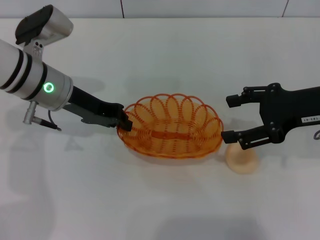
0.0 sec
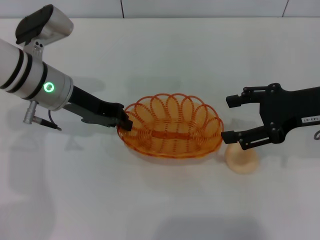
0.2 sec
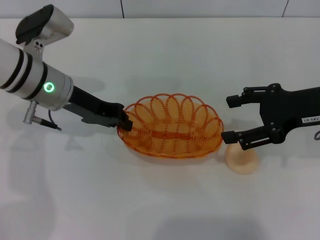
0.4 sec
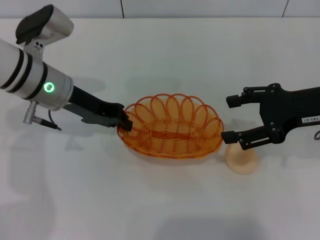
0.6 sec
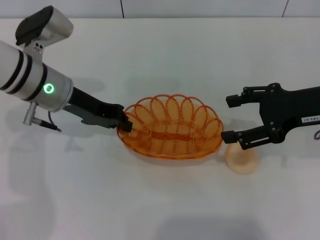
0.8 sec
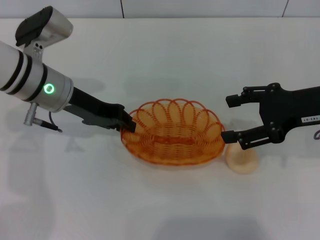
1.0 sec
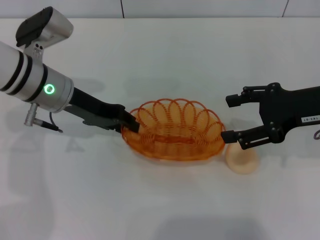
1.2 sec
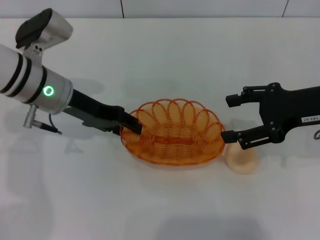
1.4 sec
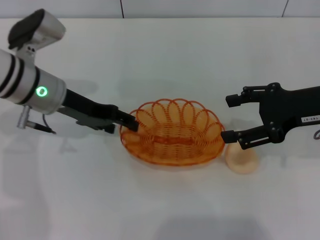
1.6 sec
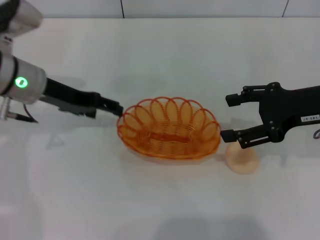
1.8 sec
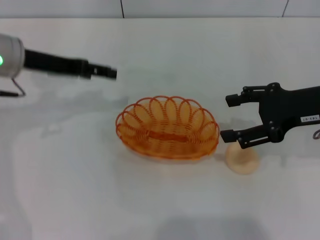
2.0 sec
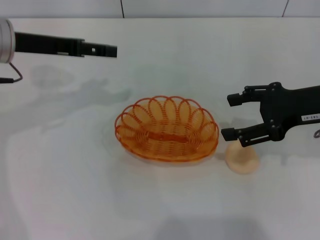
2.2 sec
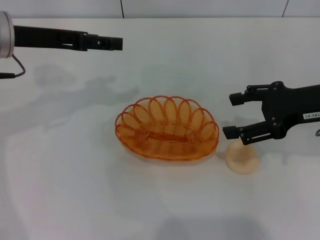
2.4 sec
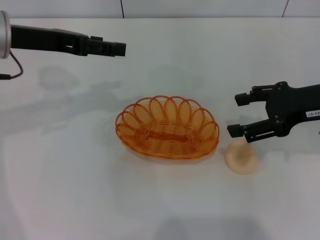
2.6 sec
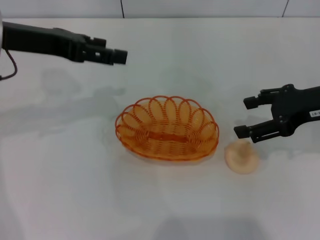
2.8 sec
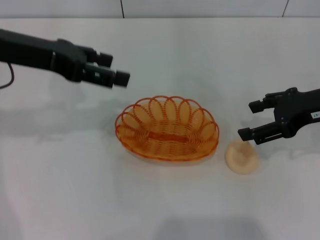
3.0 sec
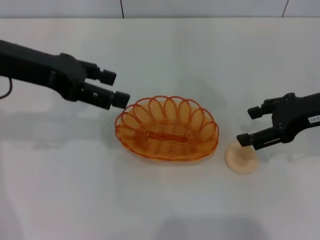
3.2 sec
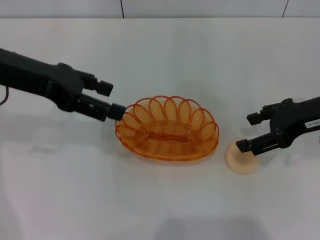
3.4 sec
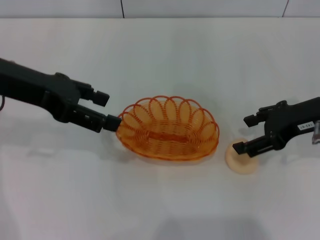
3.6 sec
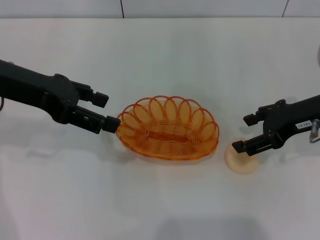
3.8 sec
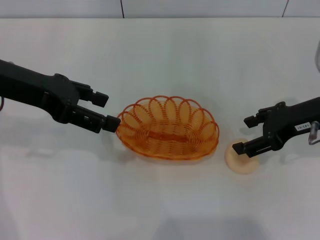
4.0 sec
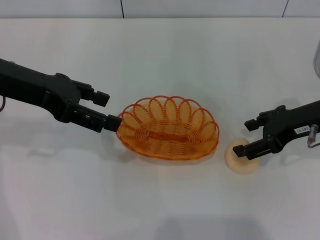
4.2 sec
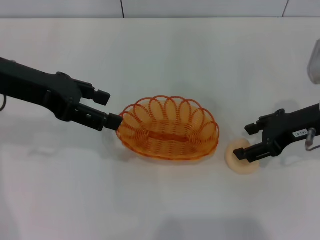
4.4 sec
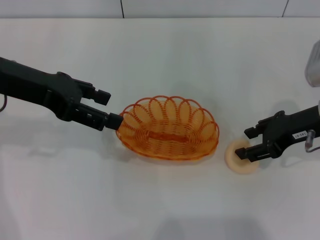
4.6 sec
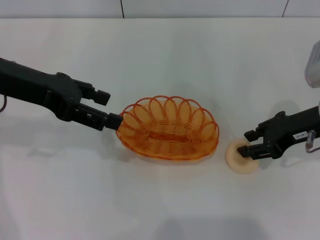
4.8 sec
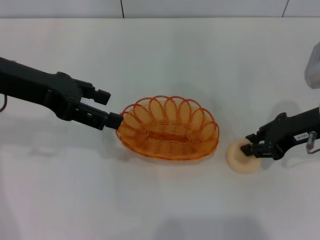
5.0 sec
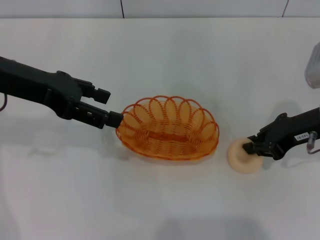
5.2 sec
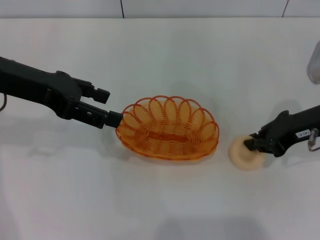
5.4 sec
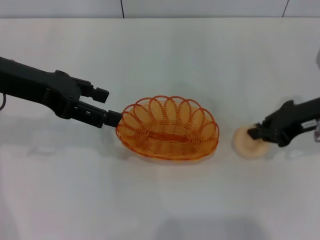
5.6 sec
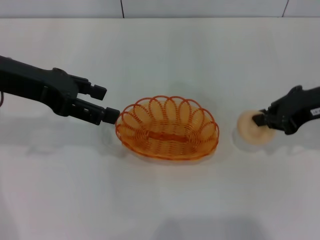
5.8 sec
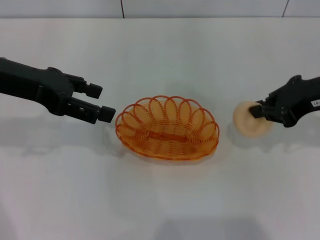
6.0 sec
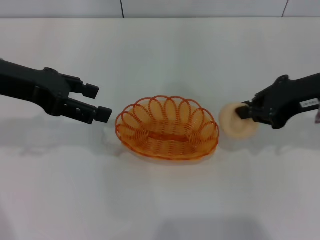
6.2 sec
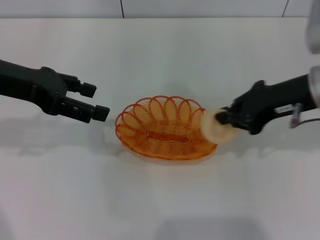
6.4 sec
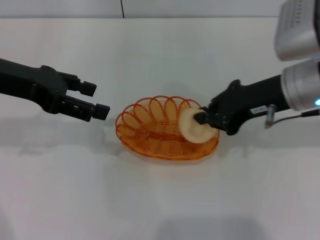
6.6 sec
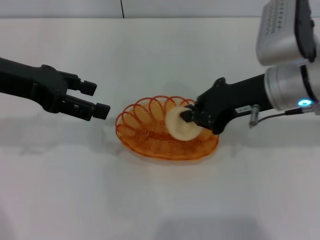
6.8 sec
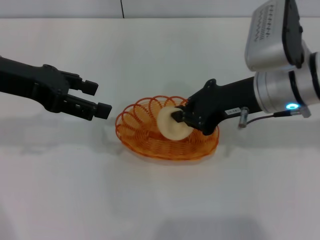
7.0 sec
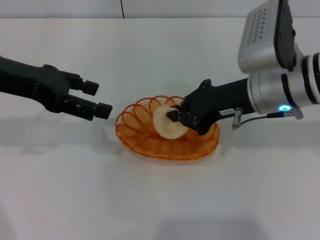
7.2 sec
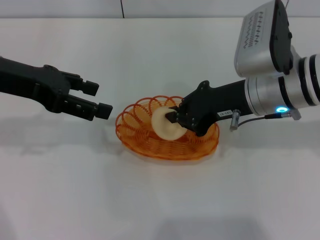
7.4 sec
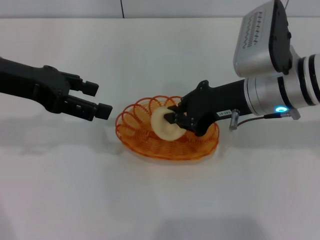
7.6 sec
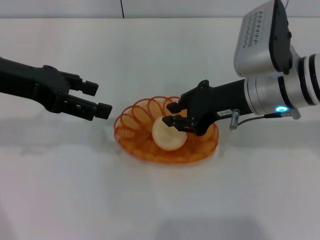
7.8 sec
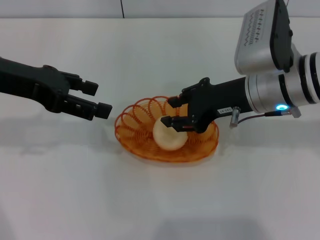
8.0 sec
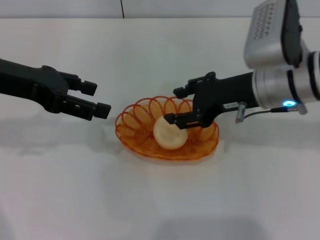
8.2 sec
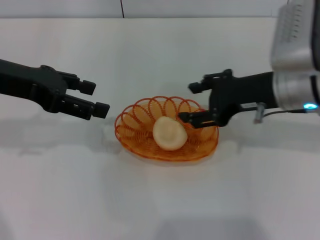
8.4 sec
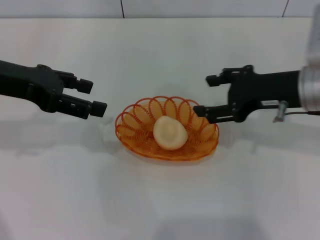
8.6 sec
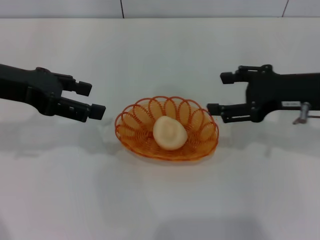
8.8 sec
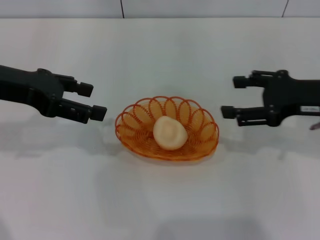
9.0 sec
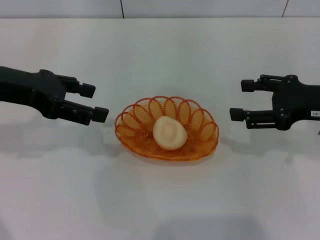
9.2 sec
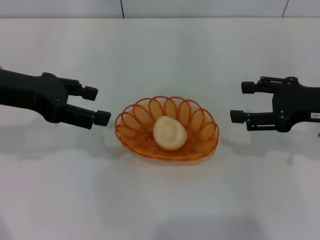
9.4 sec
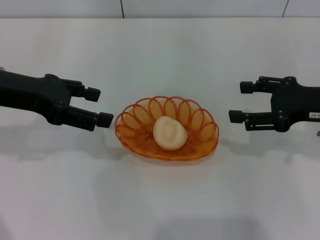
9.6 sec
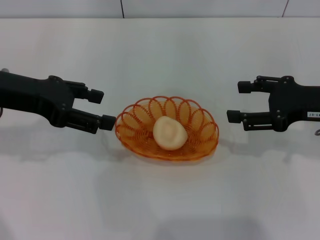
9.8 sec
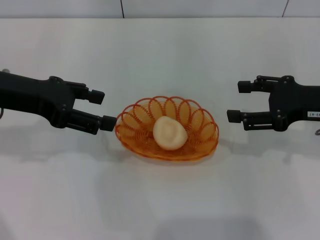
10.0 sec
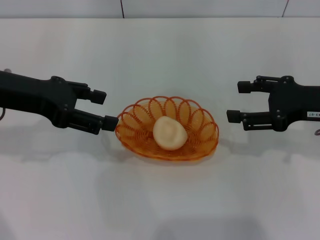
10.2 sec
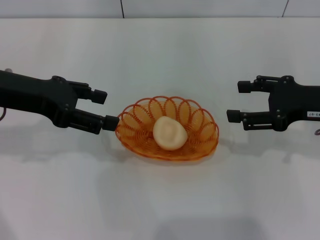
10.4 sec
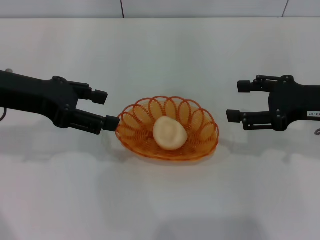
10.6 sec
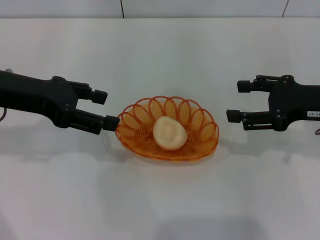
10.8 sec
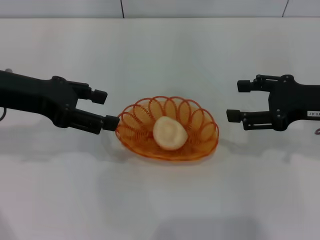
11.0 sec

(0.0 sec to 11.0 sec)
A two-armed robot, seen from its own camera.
Step, 2.0 sec - 6.0 sec: Pick up the egg yolk pastry with the right gripper.
Step, 6.2 sec - 8.2 sec: Place the egg yolk pastry into the basket with the right gripper.
0.0 sec - 1.6 sec: The left gripper opens up.
1.6 sec - 3.2 sec: The left gripper shifts some 10 cm upward, and opens up.
3.2 sec - 4.8 sec: The grippers move only a little.
4.8 sec - 6.2 sec: The right gripper is displaced upward by some 5 cm, and closes.
6.2 sec - 7.8 sec: The right gripper heads to the left, covering approximately 10 cm.
7.8 sec - 9.4 sec: The right gripper is displaced to the right by about 15 cm, and opens up.
9.4 sec - 11.0 sec: Both grippers stay about where they are.
